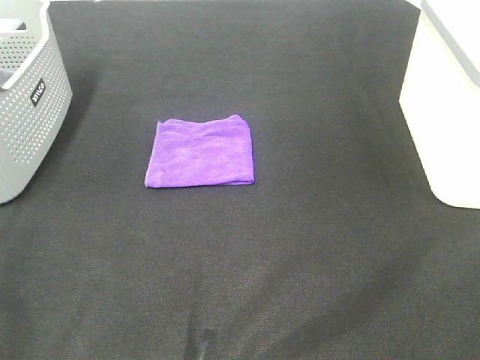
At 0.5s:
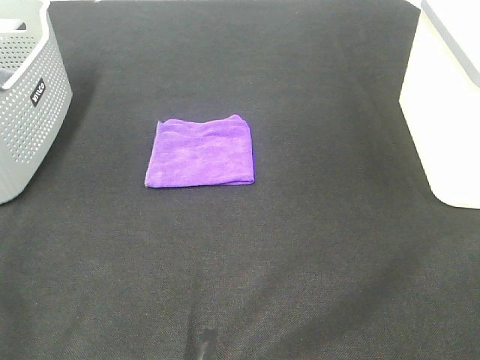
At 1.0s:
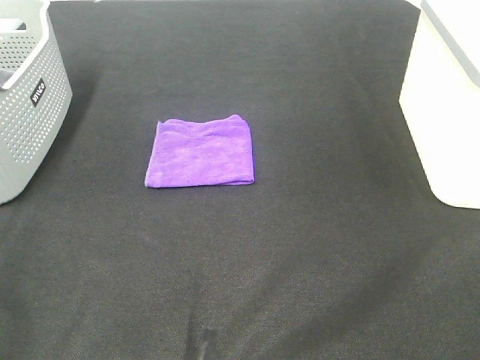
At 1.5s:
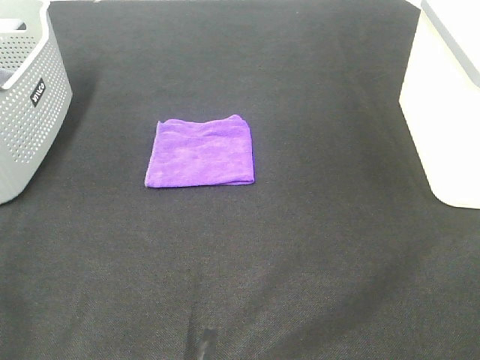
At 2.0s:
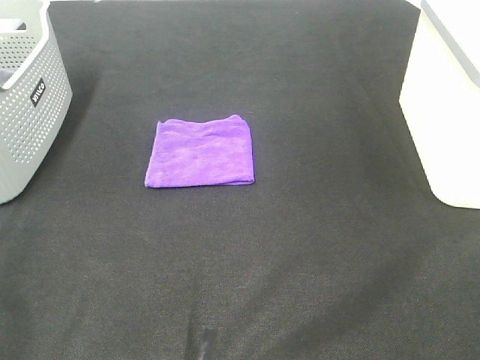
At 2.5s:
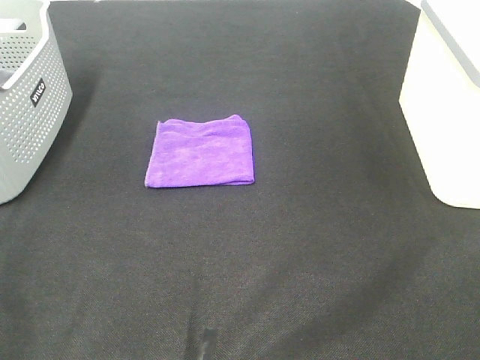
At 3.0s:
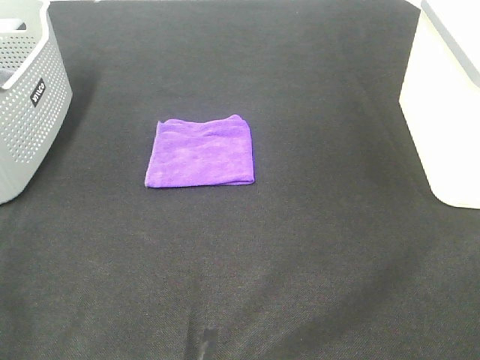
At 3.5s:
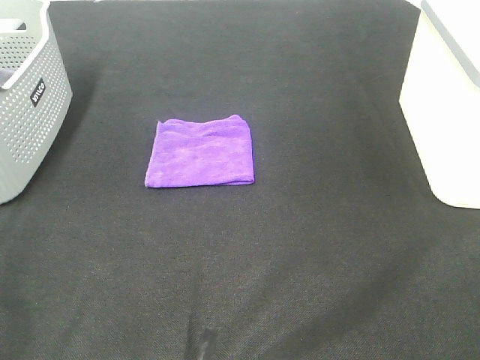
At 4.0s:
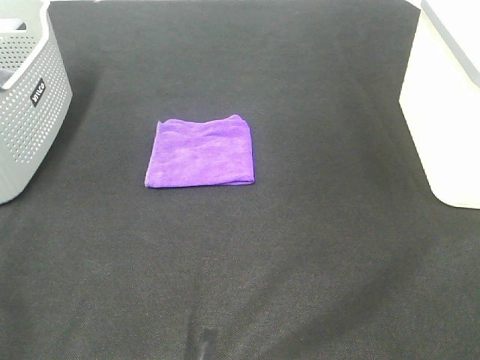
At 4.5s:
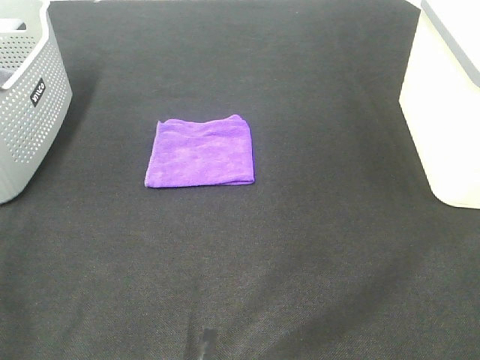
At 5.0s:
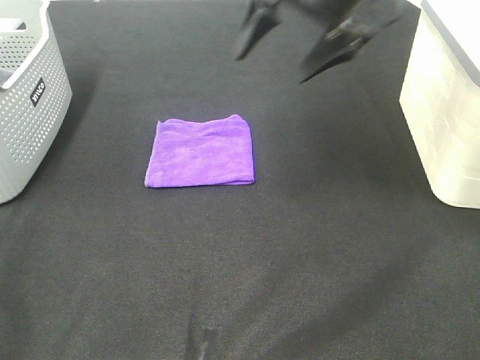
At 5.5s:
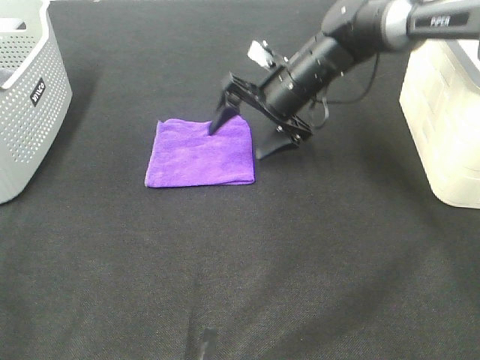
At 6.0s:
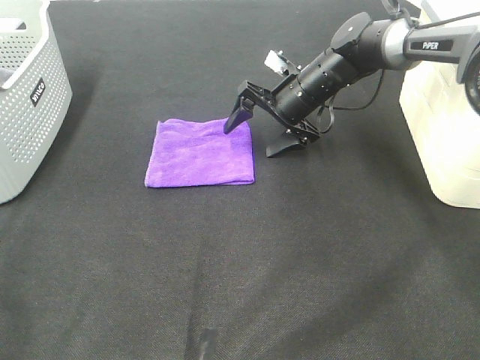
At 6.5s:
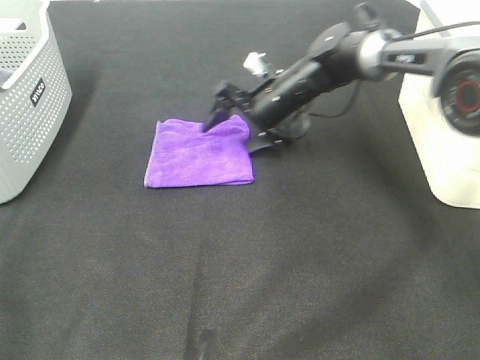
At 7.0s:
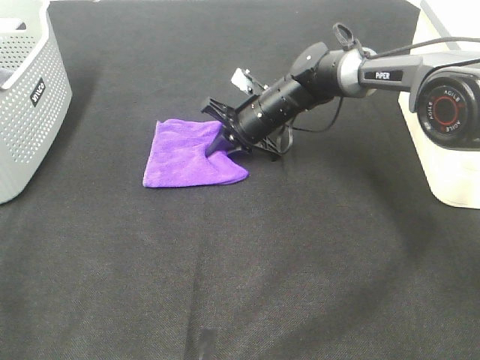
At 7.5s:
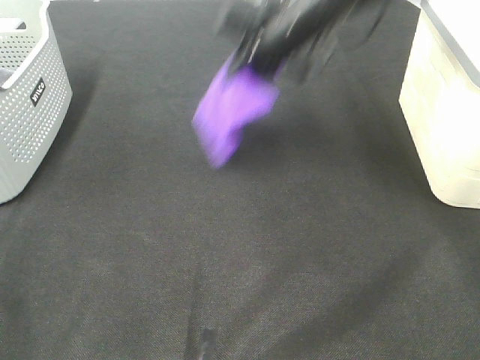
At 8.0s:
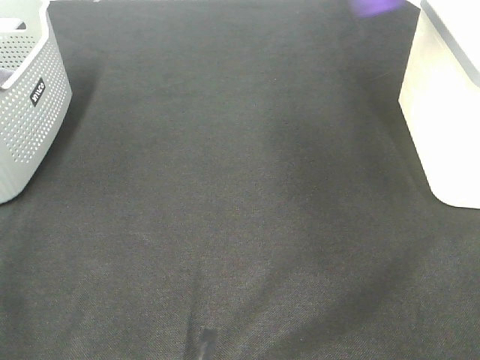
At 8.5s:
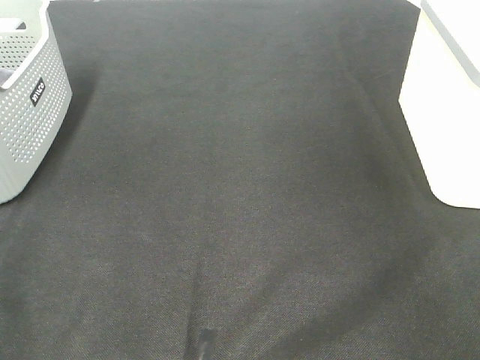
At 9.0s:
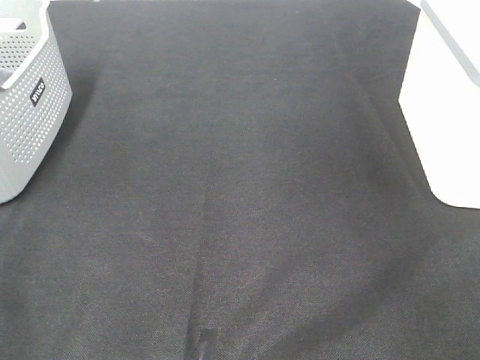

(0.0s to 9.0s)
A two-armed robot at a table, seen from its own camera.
Step, 0.0s - 7.0s: Right hand: grab the folded purple towel.
0.0s - 2.0s: Both grippers stay put.
4.5s - 7.0s: The right gripper goes about 40 cm downward, forward and to the left, and closes up.
7.0s - 9.0s: The right gripper moves to the right and upward, about 50 cm.

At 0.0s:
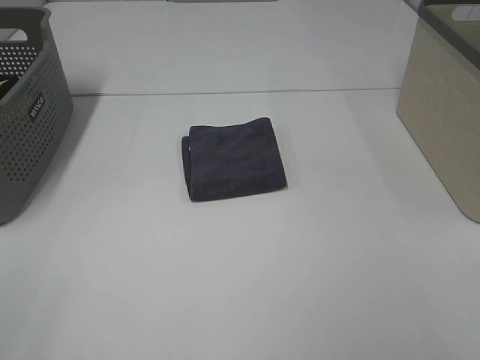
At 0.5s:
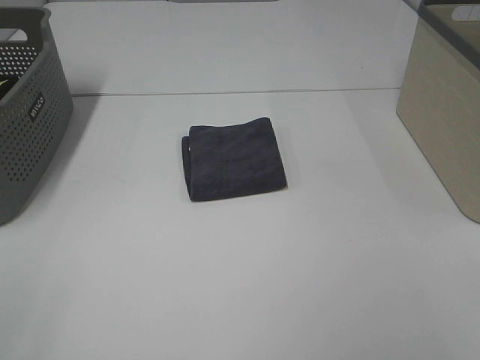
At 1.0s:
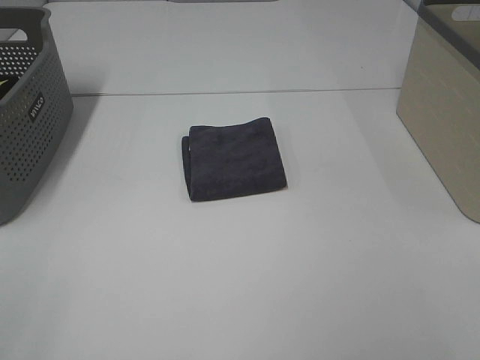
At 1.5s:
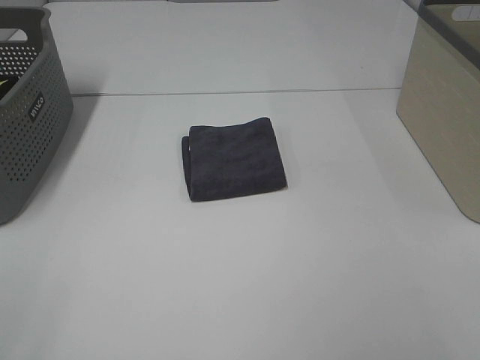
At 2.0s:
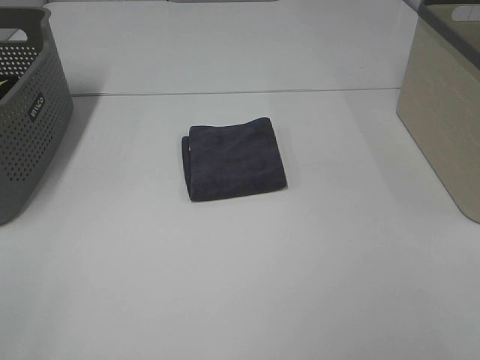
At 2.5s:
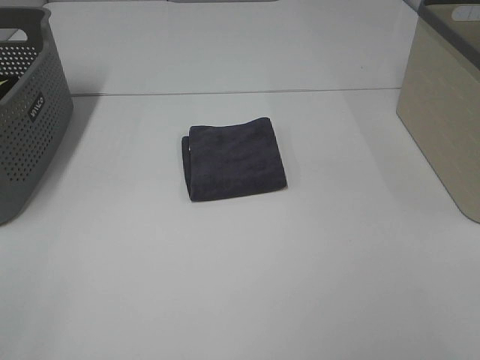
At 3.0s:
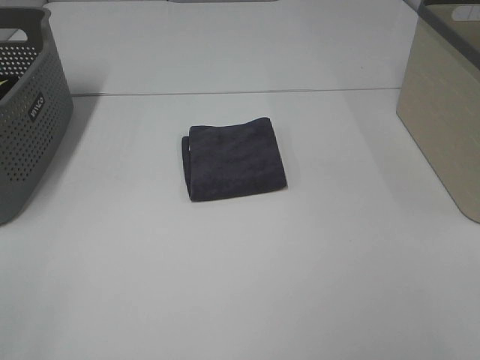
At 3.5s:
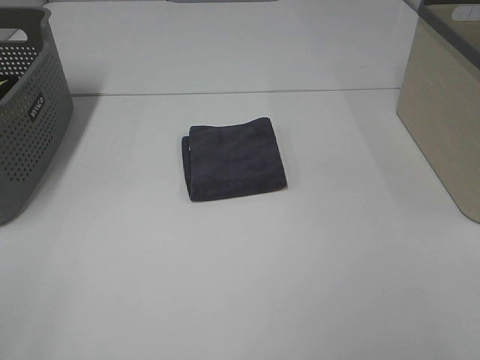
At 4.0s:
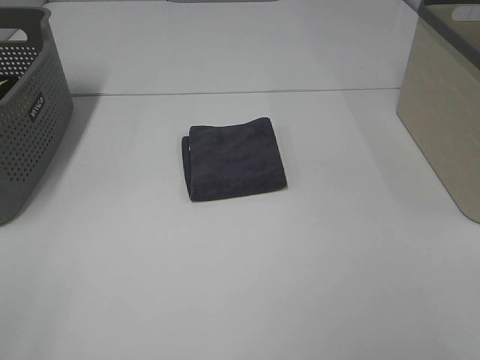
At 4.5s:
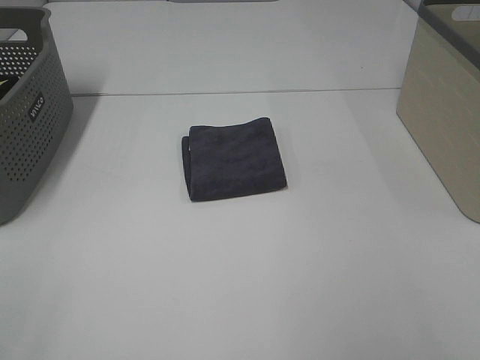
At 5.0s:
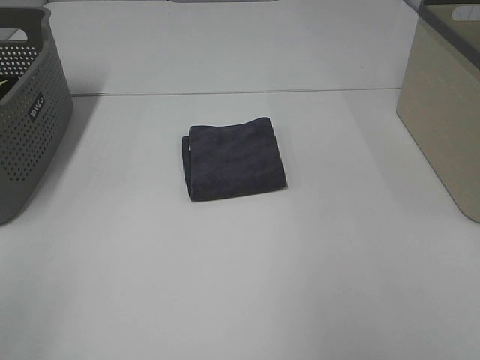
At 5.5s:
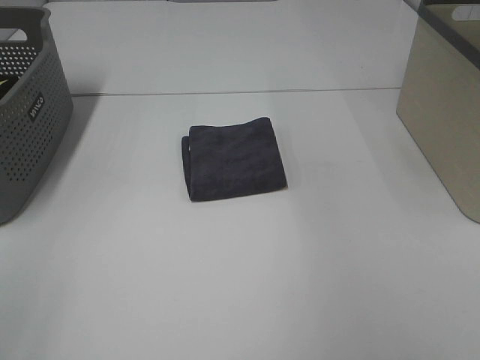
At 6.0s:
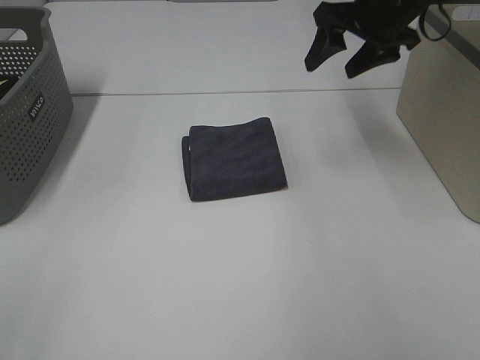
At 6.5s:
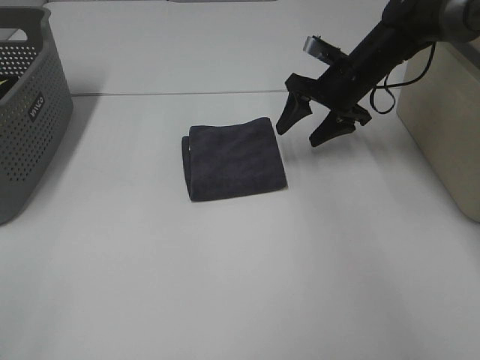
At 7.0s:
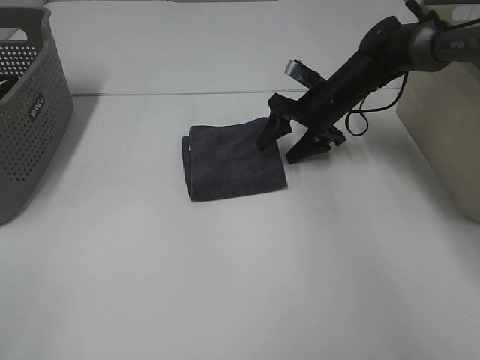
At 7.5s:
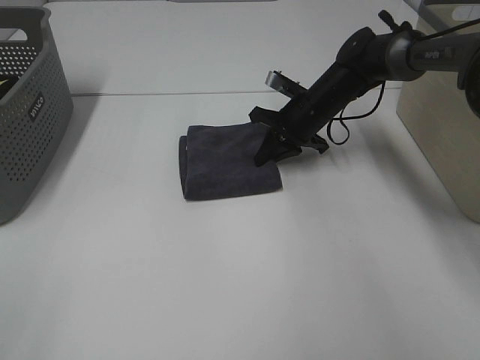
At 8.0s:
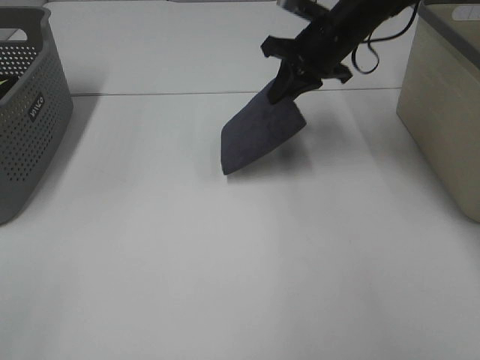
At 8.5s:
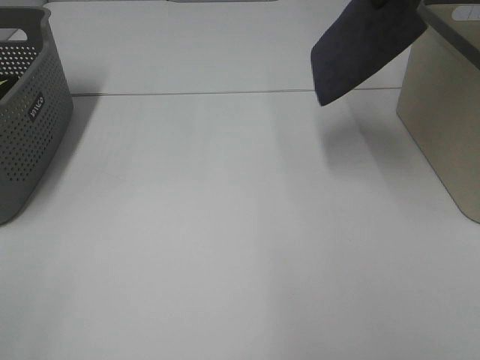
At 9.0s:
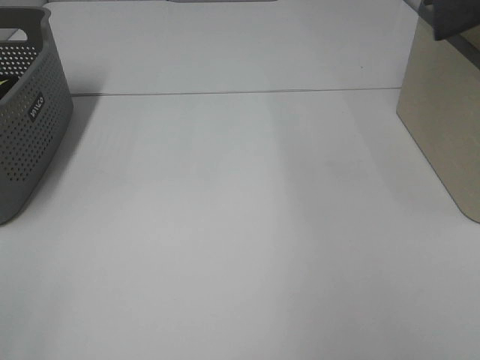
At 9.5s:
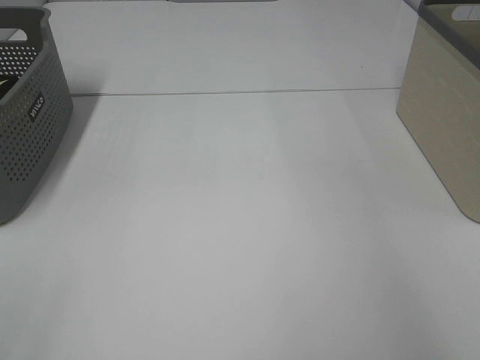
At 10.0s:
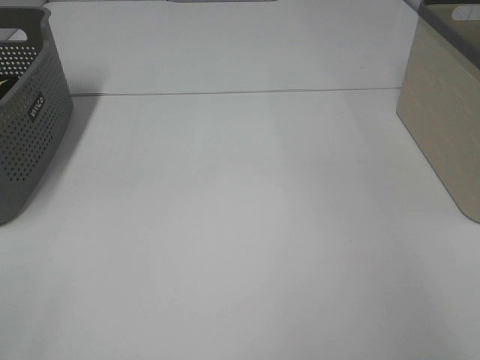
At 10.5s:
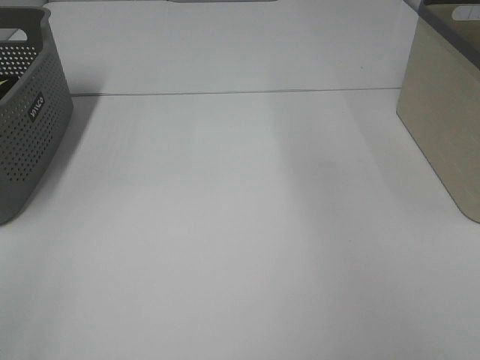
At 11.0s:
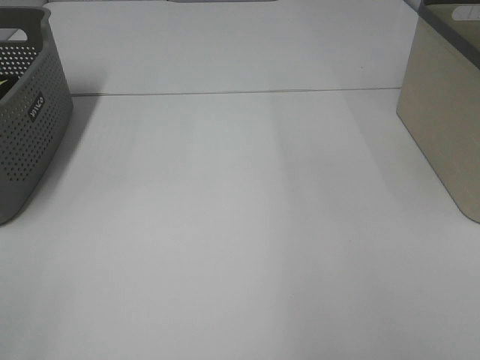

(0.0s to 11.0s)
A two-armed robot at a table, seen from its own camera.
Step, 0.0s - 7.0s: Right hand: grab the folded grey towel.
Step, 7.5s - 10.0s: Right hand: place the grey towel in right basket.
0.0s - 3.5s: Both grippers stay put.
5.5s - 7.5s: The right gripper travels downward and to the left by approximately 30 cm, and closes its fingers.
7.5s - 9.0s: The right gripper is displaced upward and to the right by approximately 40 cm.
9.0s - 11.0s: The right gripper heads to the left, covering roughly 5 cm, and opens its fingers.

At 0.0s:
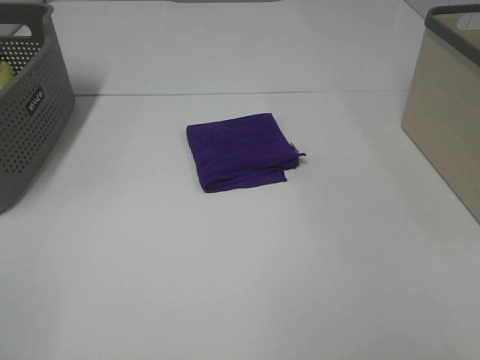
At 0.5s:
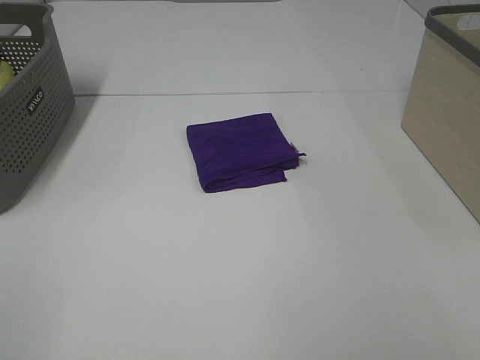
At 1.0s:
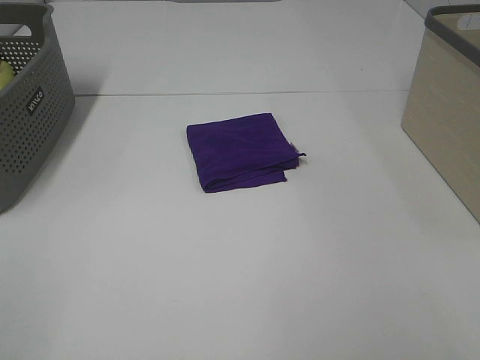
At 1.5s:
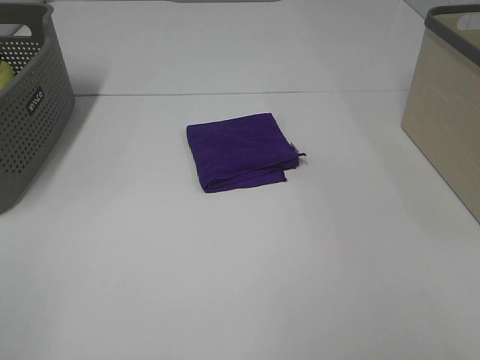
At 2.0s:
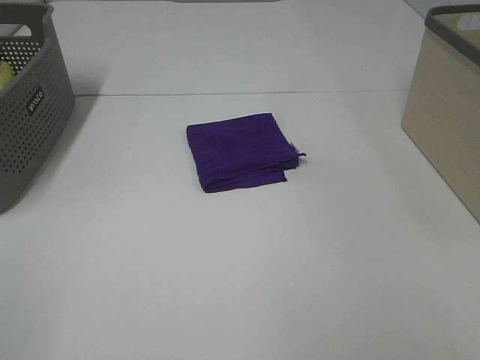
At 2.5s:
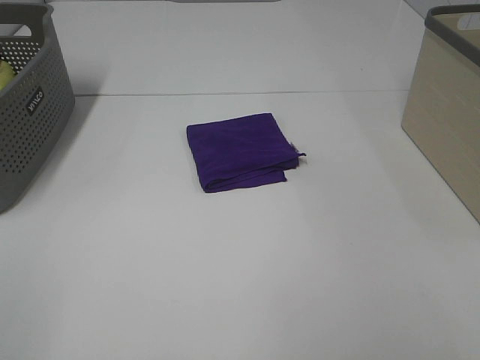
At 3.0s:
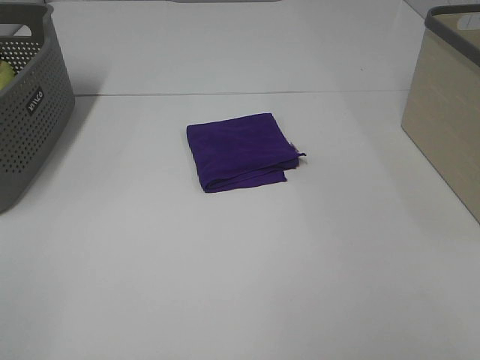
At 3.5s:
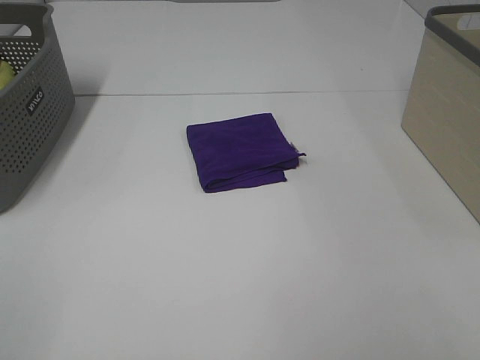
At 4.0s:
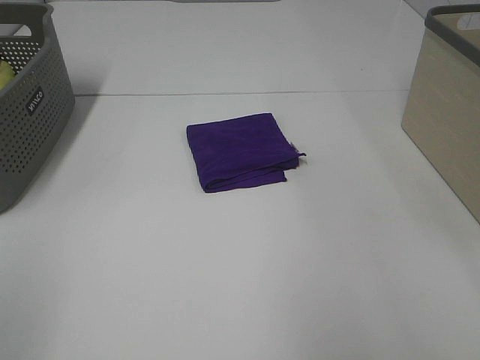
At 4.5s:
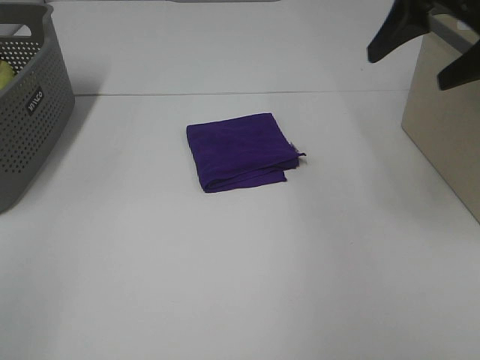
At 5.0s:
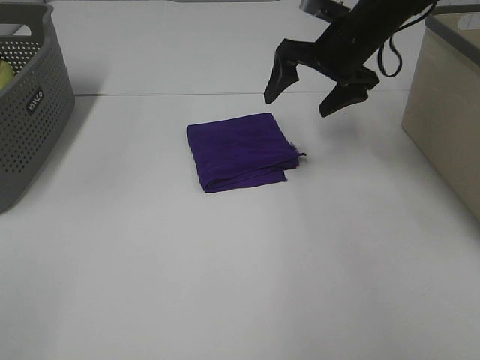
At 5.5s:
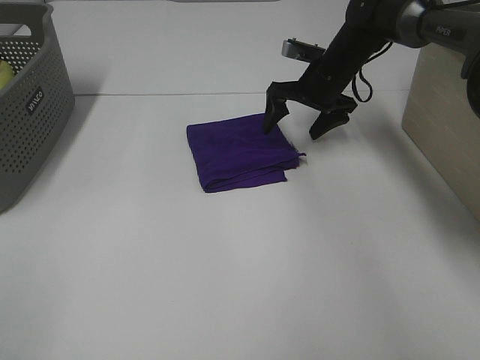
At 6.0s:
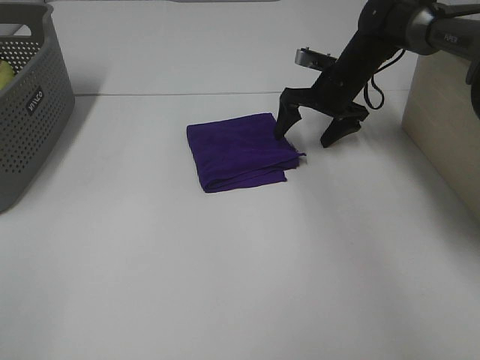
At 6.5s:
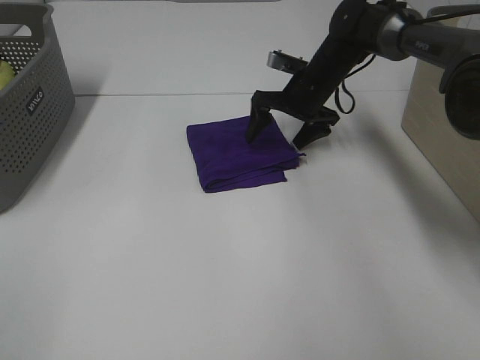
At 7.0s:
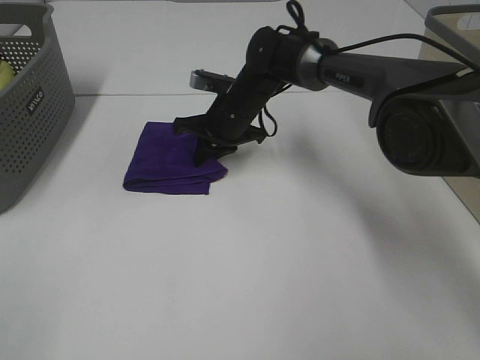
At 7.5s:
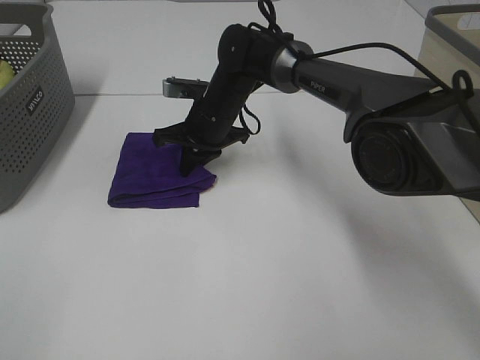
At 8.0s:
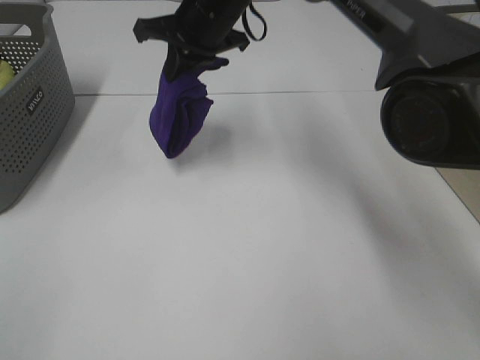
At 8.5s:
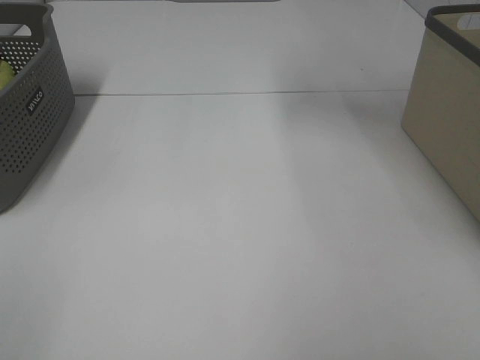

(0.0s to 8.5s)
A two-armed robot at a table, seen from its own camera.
Step, 0.0s - 7.0s: Right hand: grab the folded purple towel.
0.0s - 2.0s: Both grippers stay put.
4.0s - 6.5s: The right gripper shifts approximately 50 cm forward, downward and to the left.
6.5s - 8.5s: The right gripper moves upward, approximately 35 cm, and closes.
